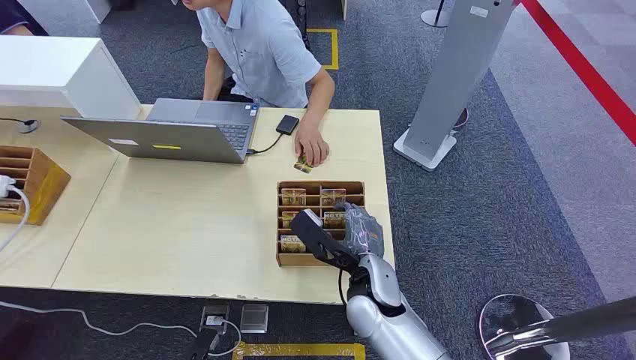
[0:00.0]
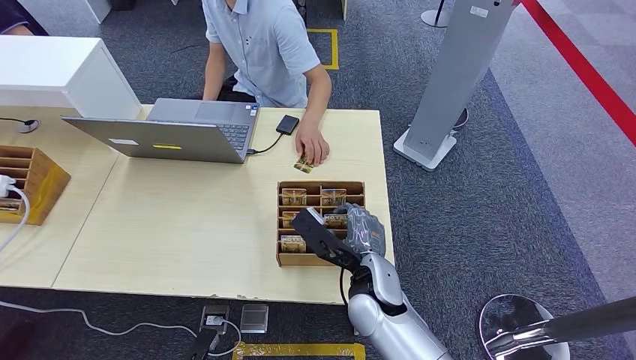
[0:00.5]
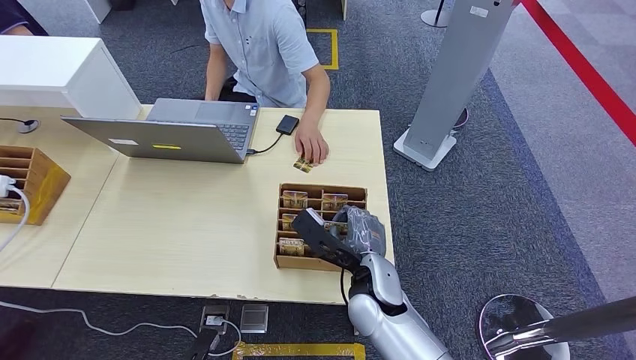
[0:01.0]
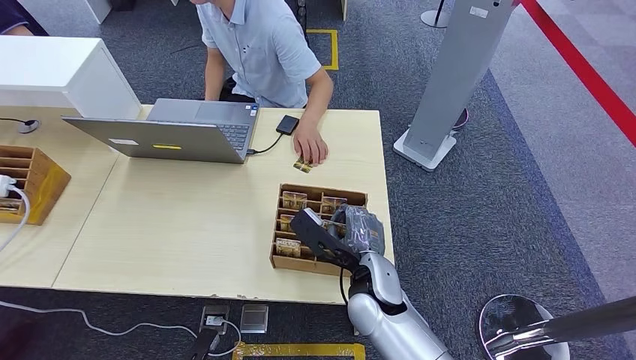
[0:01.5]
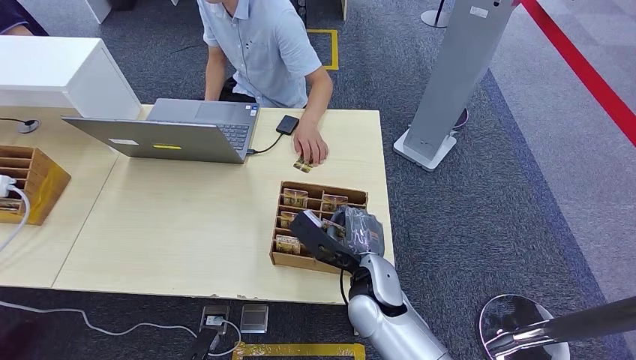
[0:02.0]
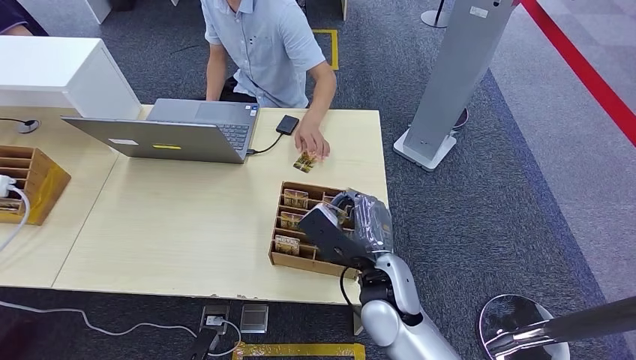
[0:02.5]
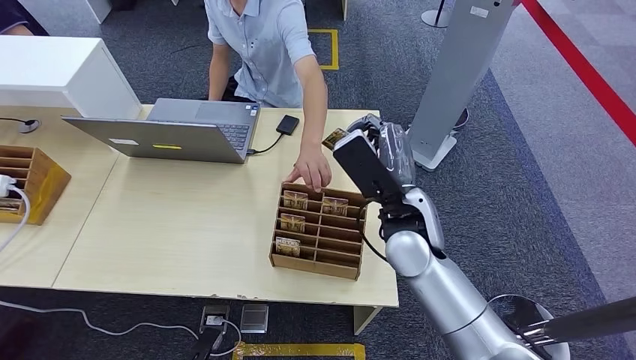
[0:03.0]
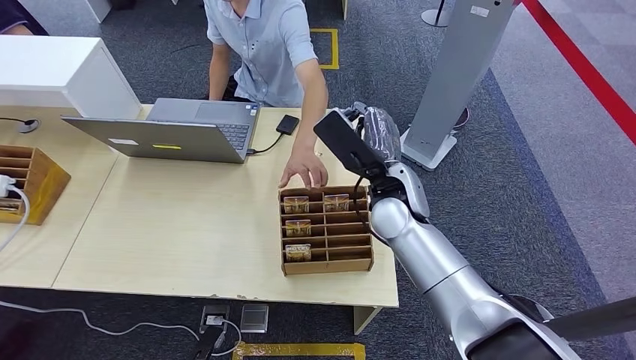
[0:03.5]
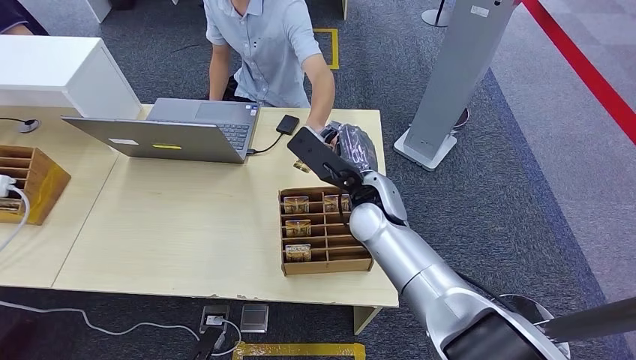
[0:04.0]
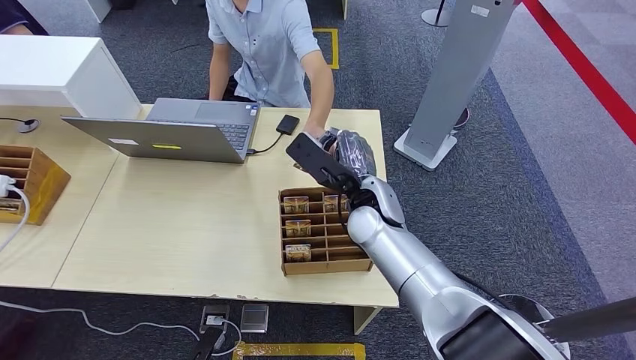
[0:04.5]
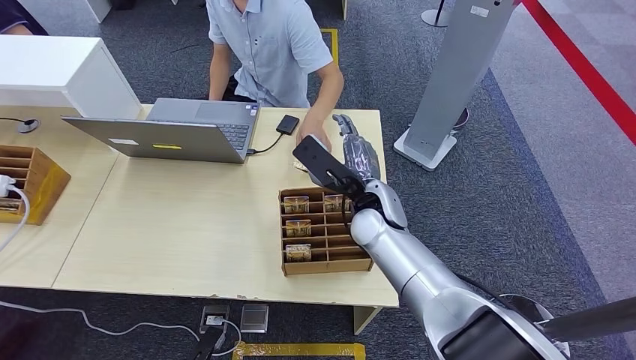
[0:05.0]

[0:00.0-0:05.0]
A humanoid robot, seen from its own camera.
Step, 0:00.0 to 0:02.5: Pick up the room card from the card holder.
Step, 0:04.0 to 0:05.0: Hand the room card to the target.
0:02.5 to 0:05.0: The right hand moves forward, roughly 10 cm.
